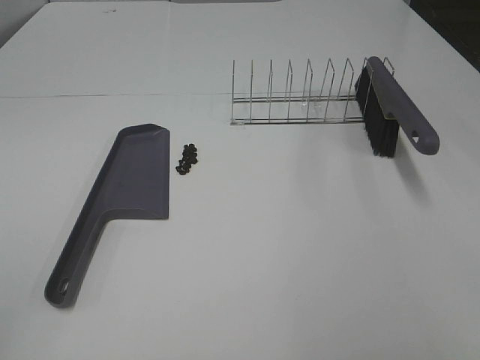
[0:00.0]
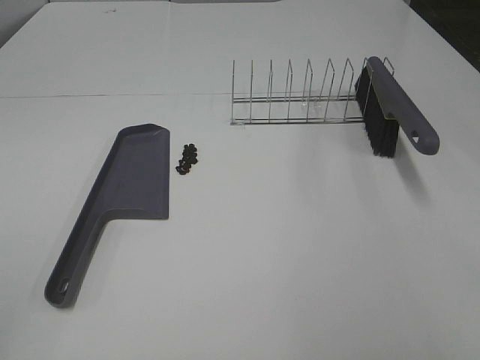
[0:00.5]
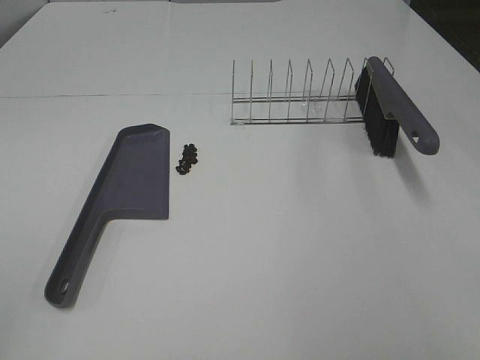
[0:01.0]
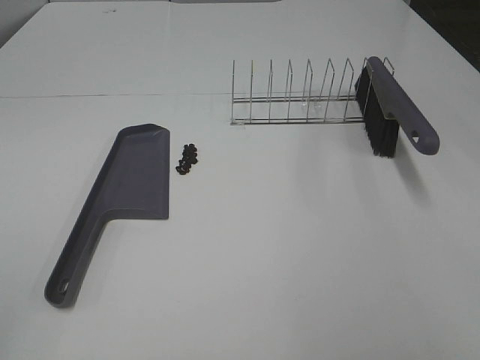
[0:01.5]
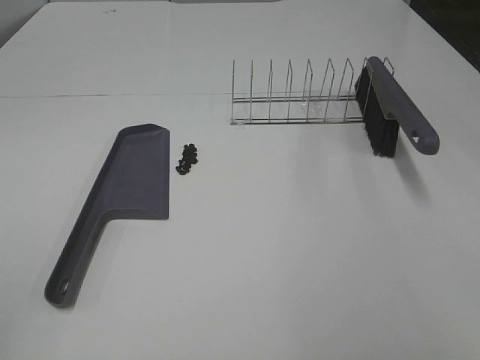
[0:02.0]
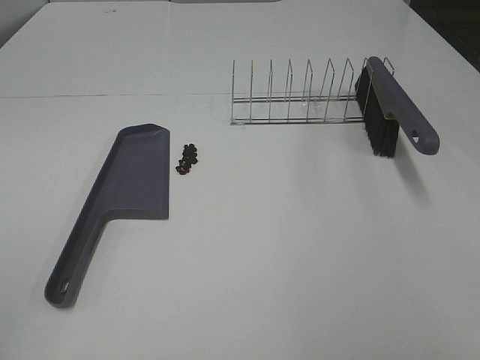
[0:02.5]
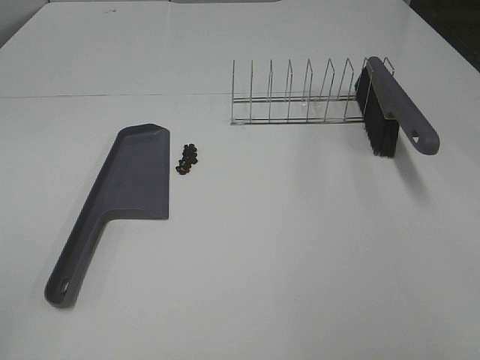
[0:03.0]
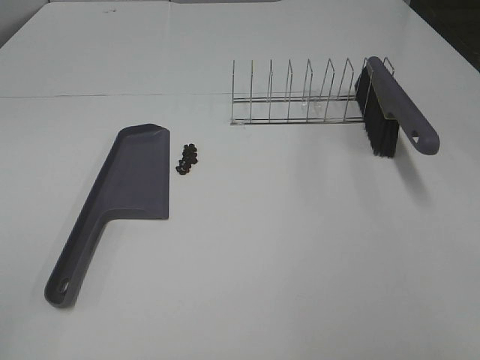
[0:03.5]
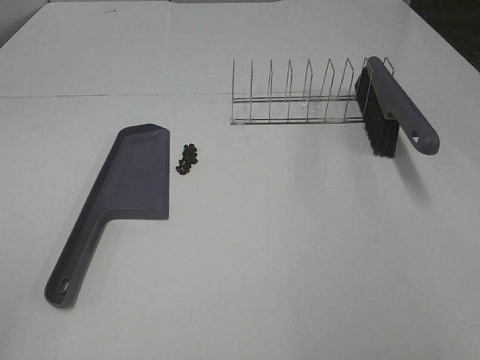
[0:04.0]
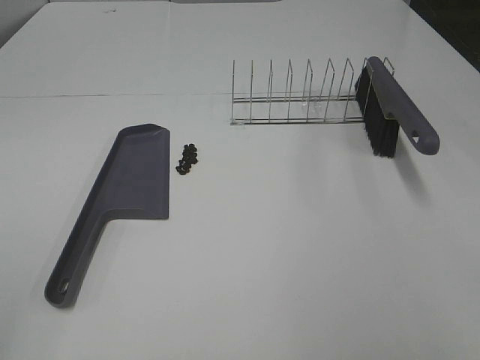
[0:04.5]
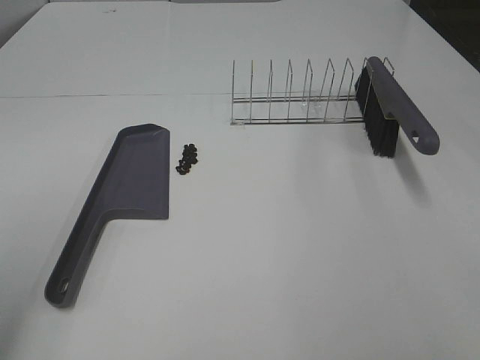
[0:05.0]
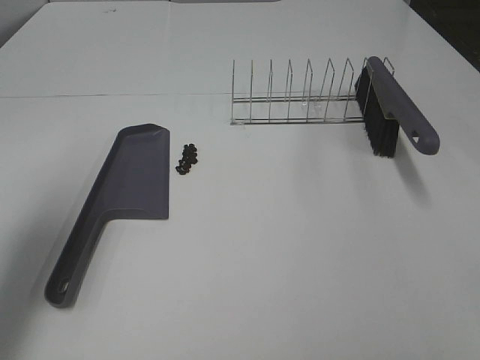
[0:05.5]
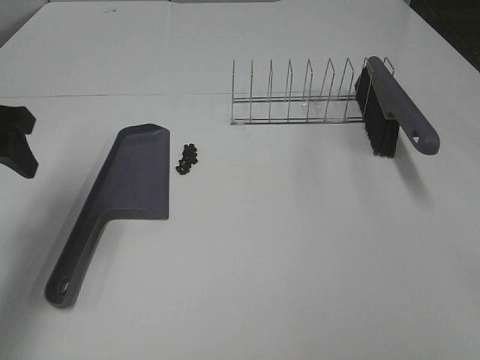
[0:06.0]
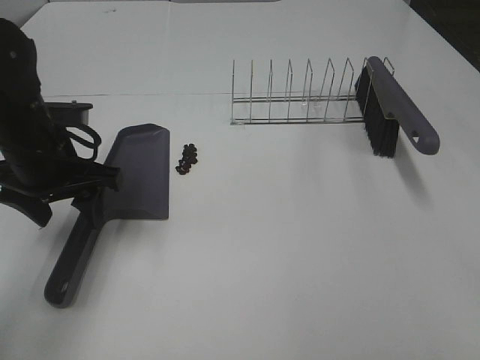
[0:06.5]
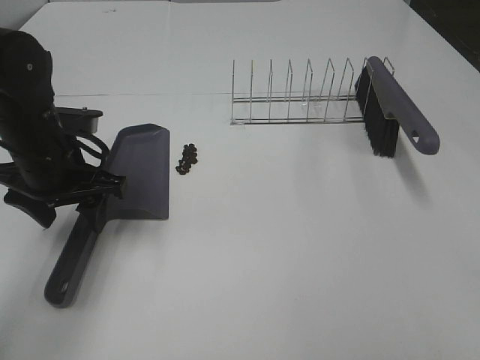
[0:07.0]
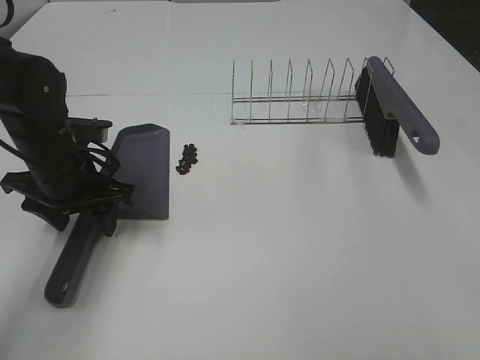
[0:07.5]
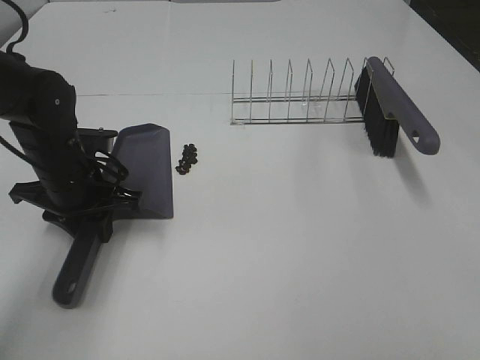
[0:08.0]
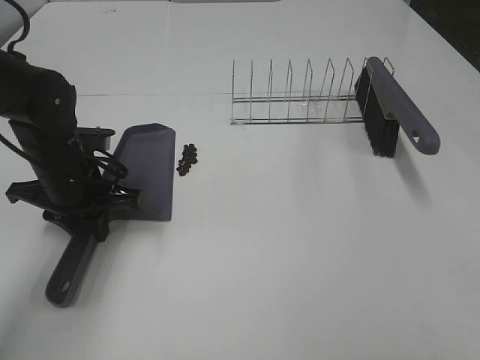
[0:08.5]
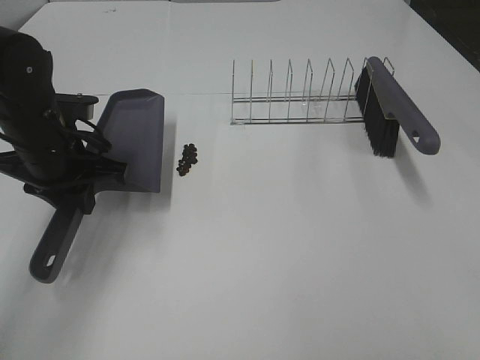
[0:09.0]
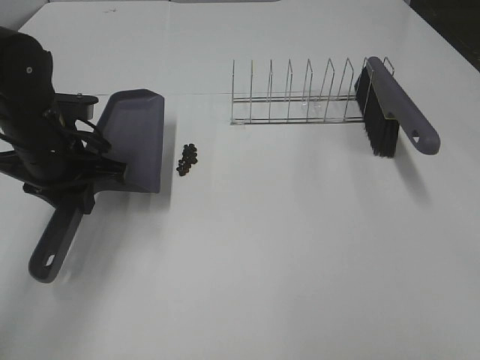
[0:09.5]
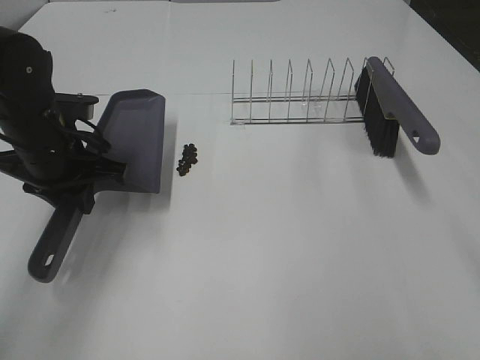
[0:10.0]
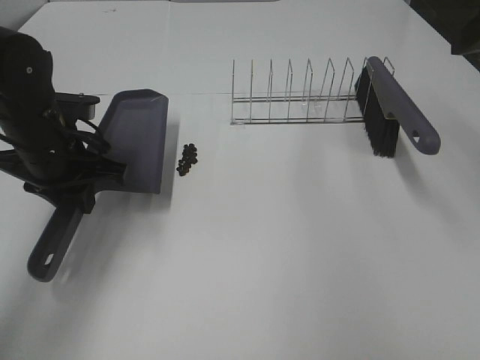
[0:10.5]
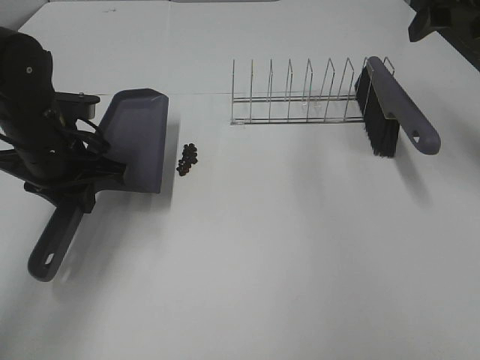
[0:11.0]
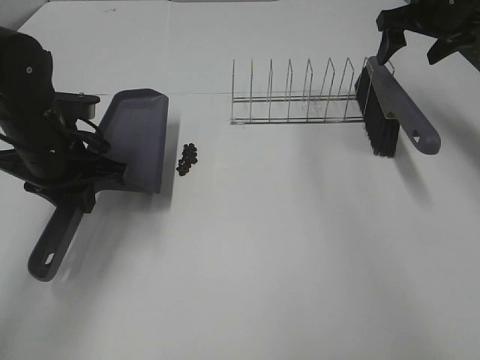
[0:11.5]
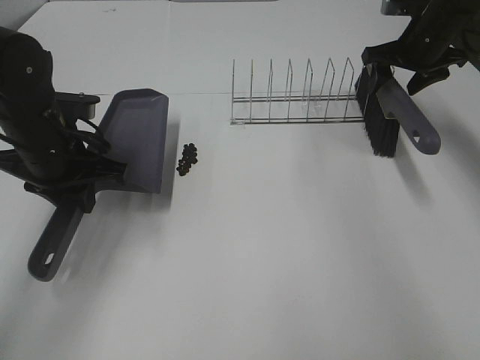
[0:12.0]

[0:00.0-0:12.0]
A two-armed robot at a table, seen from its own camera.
Task of the whole recording: Sweep Coffee Bean.
Step, 0:00.0 to 0:08.0: Left hand: grab the dustpan.
0:00.0 to 0:04.0: The two grippers keep their place.
0:04.0 to 0:06.0: The left gripper shifts approximately 30 cm forward.
0:06.0 to 0:08.0: The left gripper travels downward and to the right by approximately 15 cm, and closes.
0:08.0 to 0:10.0: The right gripper goes about 10 cm forward.
0:10.0 to 0:12.0: The right gripper heads forward, covering some 40 cm, and closes its fingers.

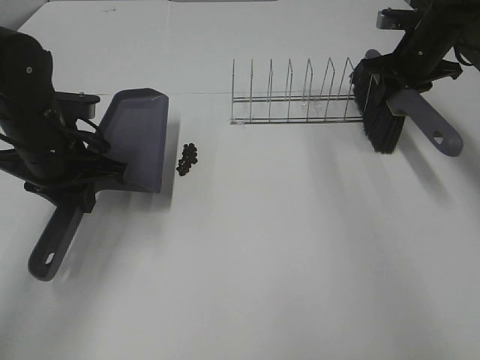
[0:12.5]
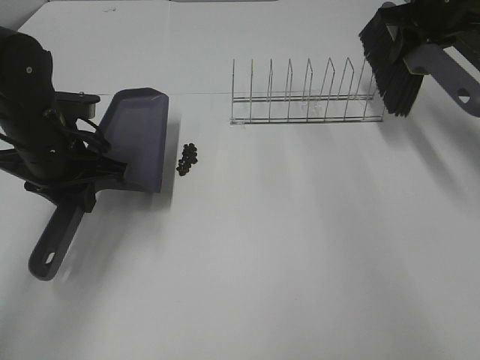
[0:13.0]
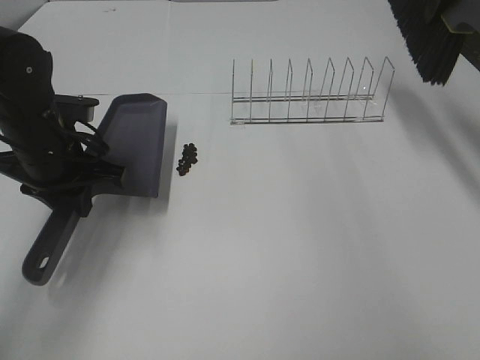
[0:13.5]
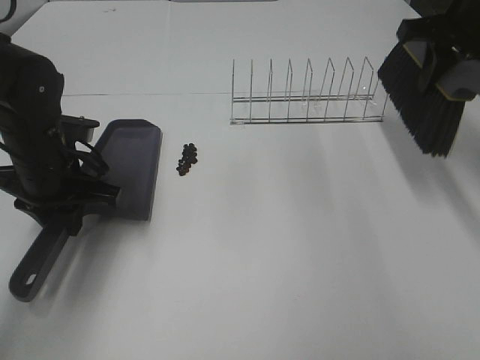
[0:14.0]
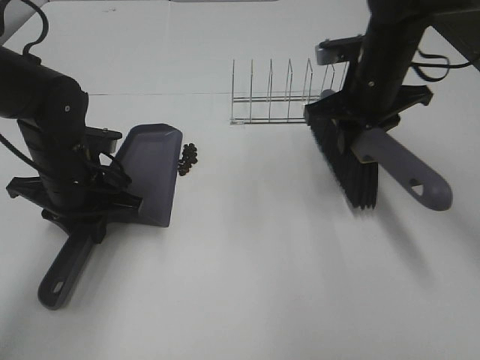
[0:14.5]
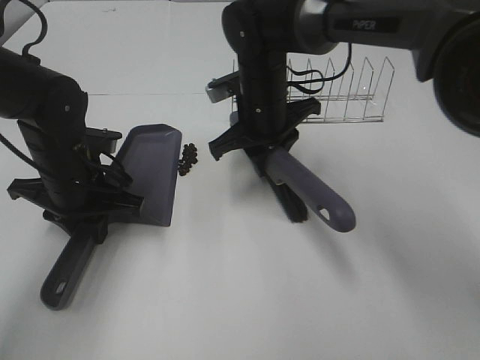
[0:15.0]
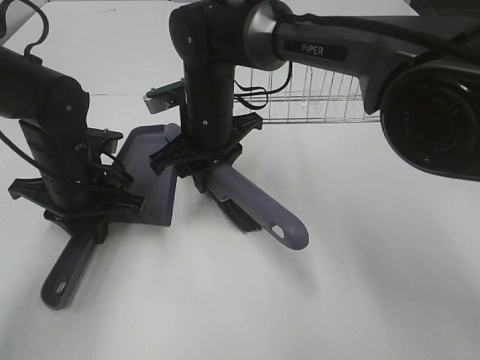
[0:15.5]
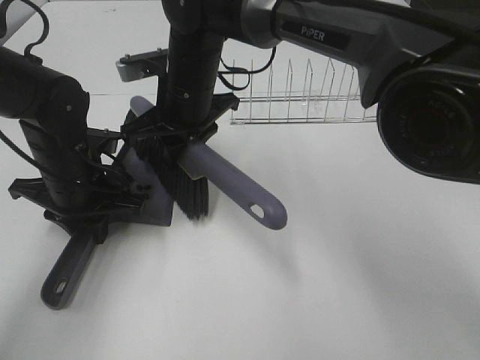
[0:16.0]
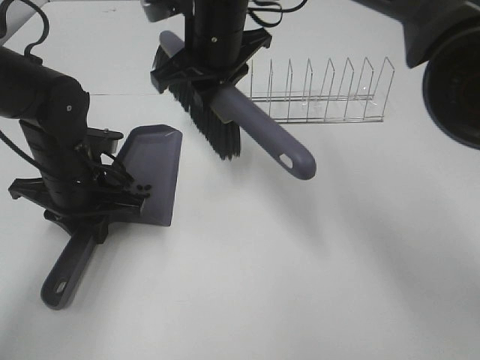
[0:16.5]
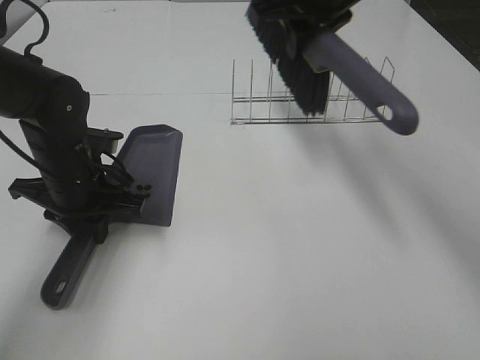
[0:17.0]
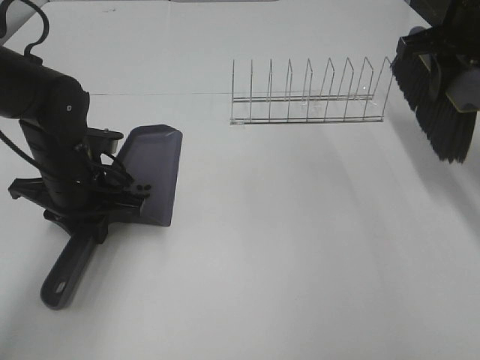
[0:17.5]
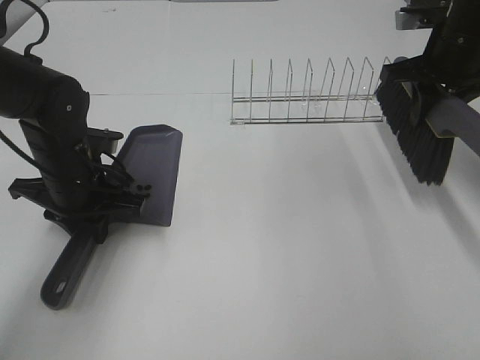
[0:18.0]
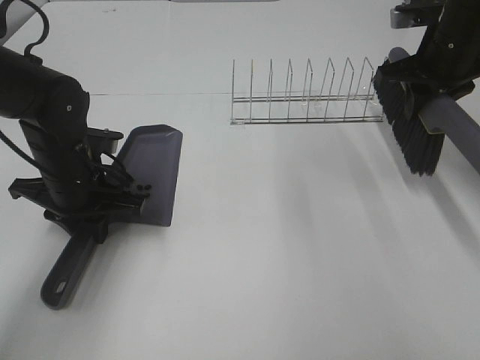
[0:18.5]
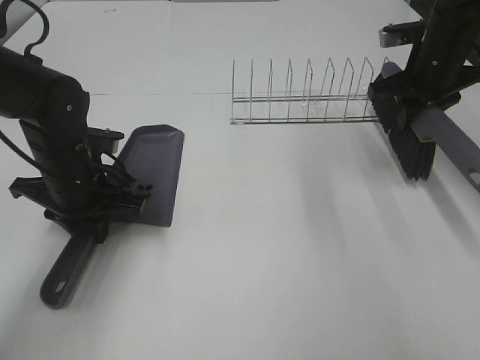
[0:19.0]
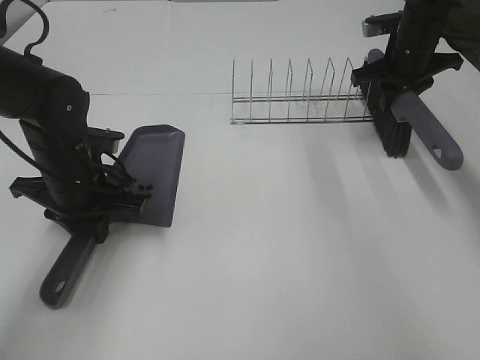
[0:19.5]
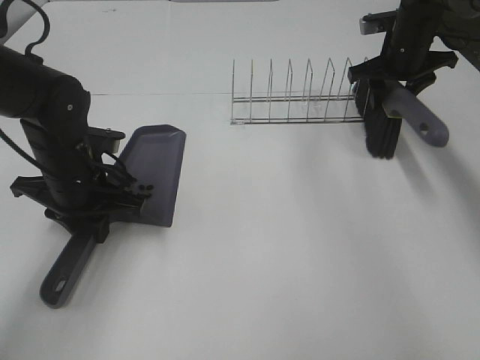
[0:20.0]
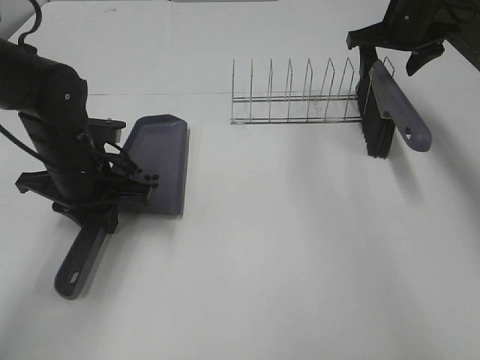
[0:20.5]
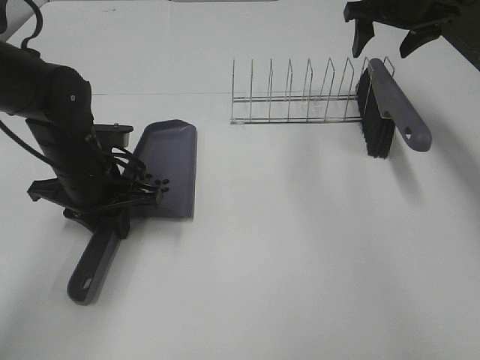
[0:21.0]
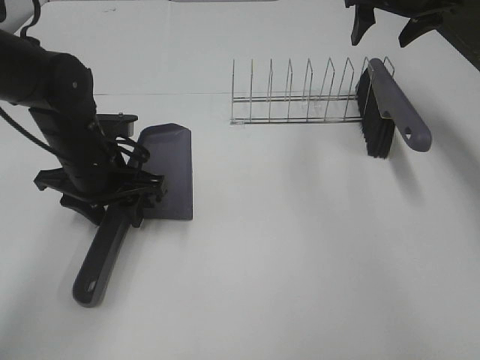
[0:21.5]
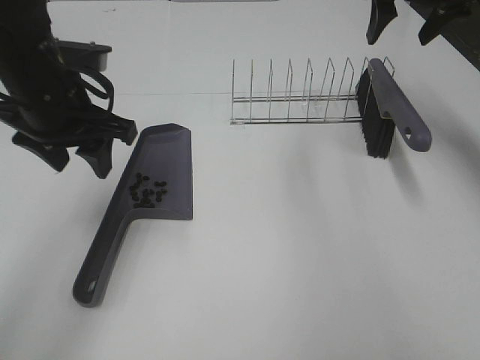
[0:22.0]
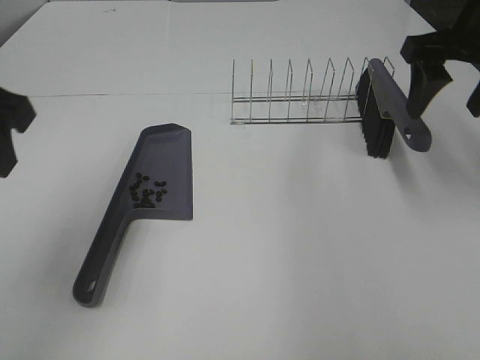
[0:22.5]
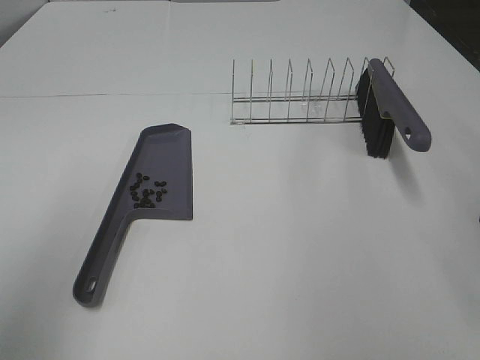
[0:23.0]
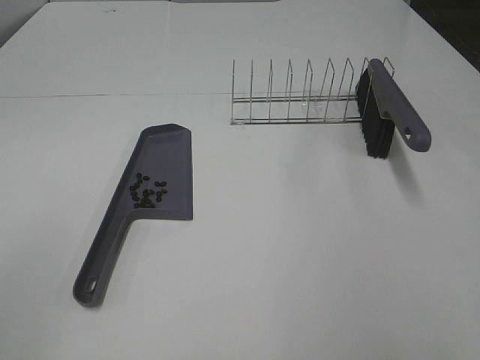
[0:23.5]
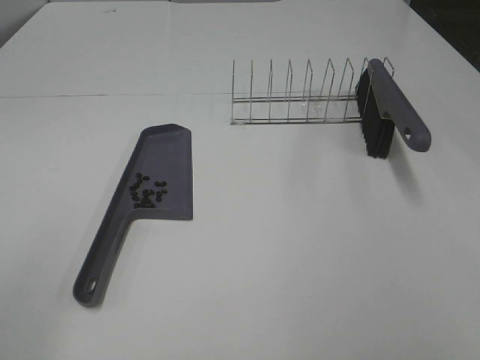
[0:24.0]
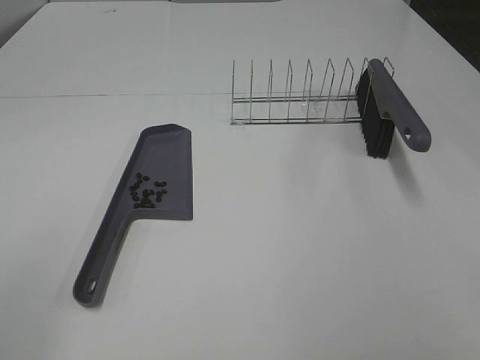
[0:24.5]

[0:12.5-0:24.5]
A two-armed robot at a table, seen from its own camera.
Task of the whole recording: Sweep Coffee Bean.
Step, 0:13.0 to 0:16.0: Right hand:sweep the coffee beans into the dustpan.
Step, 0:16.5 to 0:20.0: Right hand:place the broom on the rack.
Step, 0:20.5 to 0:21.5: Left hand:place the dustpan on the table.
0:12.5 to 0:14.5: The right gripper travels to the left and backward by approximately 15 cm, and reaches about 15 cm upward, then returns.
0:14.5 to 0:16.5: The right gripper shifts some 20 cm to the left.
0:16.5 to 0:18.5: The right gripper heads to the right, covering approximately 30 cm.
0:18.5 to 0:20.5: The right gripper heads forward, covering some 10 cm, and opens.
0:20.5 to 0:22.5: The left gripper shifts approximately 20 cm upward and backward, and opens. Meanwhile the right gripper shifts about 20 cm backward.
0:22.5 to 0:24.5: The right gripper is displaced backward by roughly 35 cm. Meanwhile the left gripper goes about 20 cm backward and to the left.

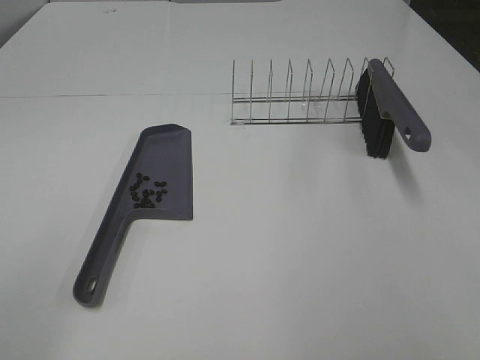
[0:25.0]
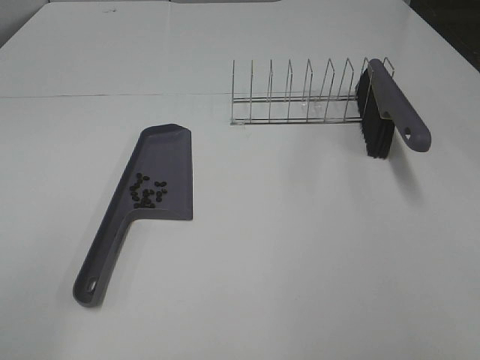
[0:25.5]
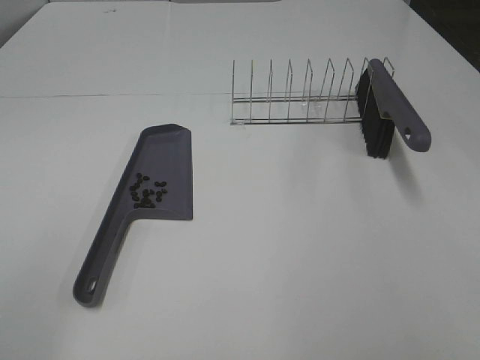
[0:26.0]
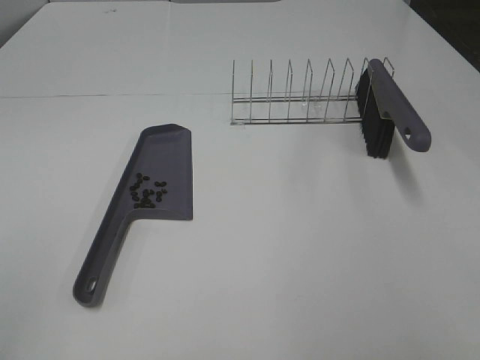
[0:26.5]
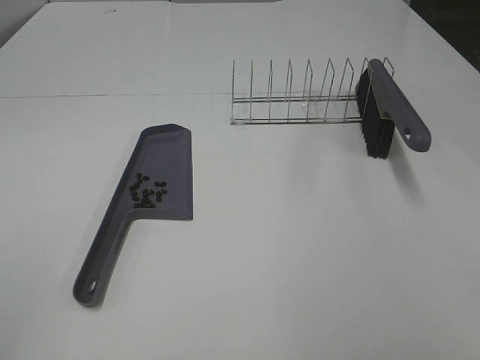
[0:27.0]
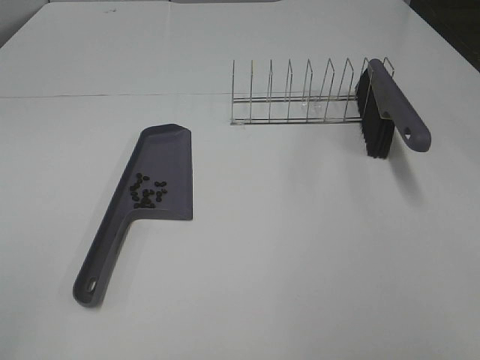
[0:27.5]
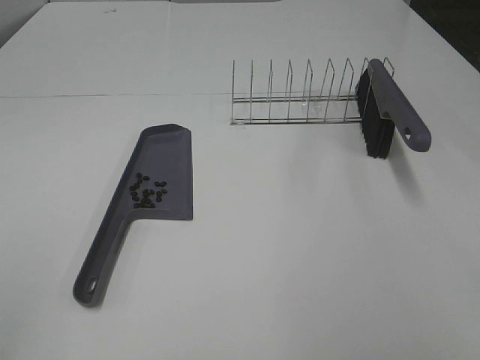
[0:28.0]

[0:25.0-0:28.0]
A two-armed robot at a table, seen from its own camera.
Task of the whole recording: Sweep Coffee Bean.
0:26.5 to 0:28.0: Both grippers stay about where they are.
